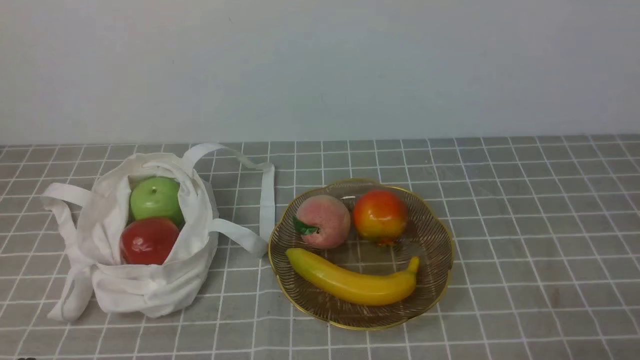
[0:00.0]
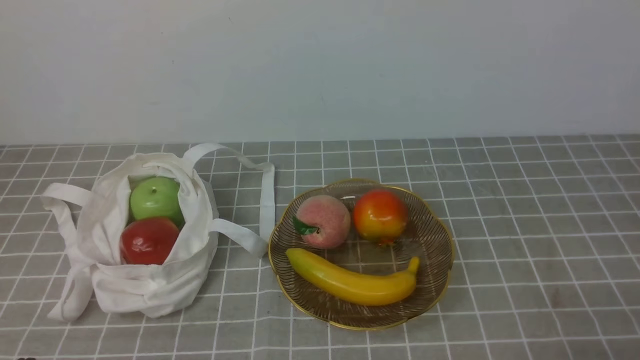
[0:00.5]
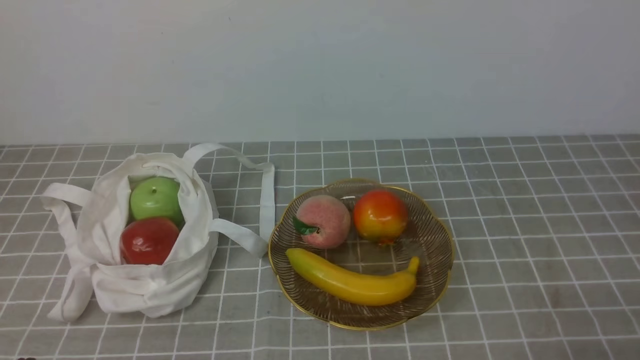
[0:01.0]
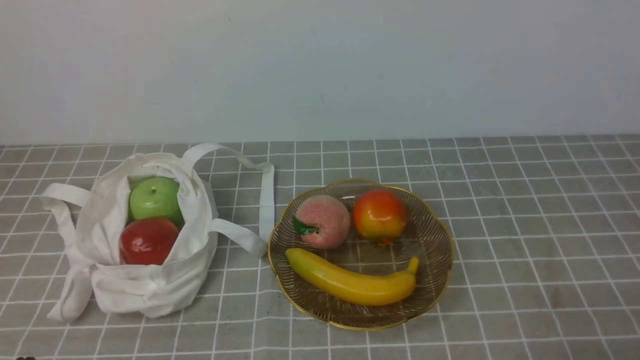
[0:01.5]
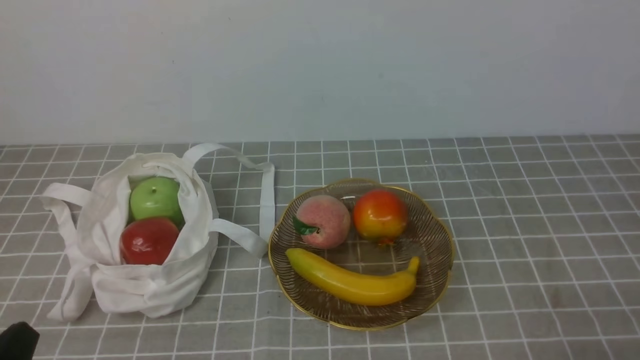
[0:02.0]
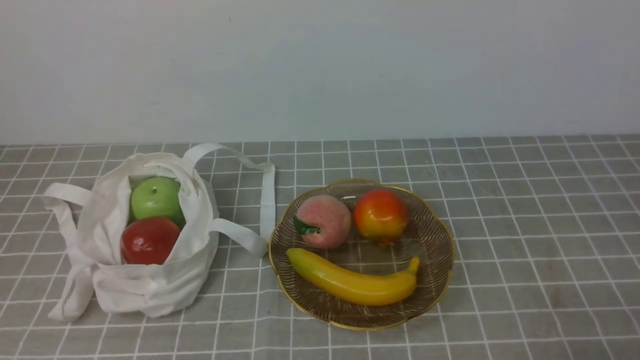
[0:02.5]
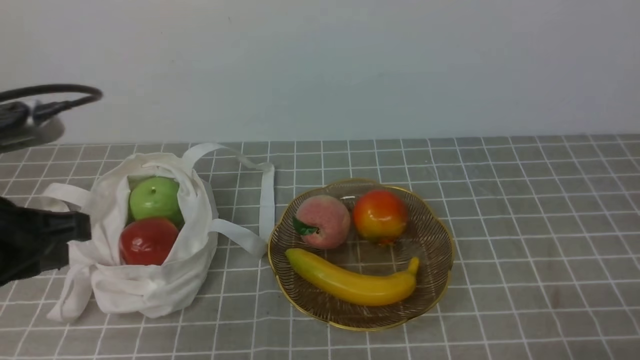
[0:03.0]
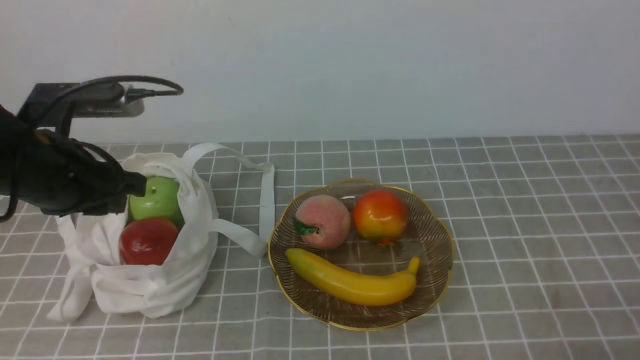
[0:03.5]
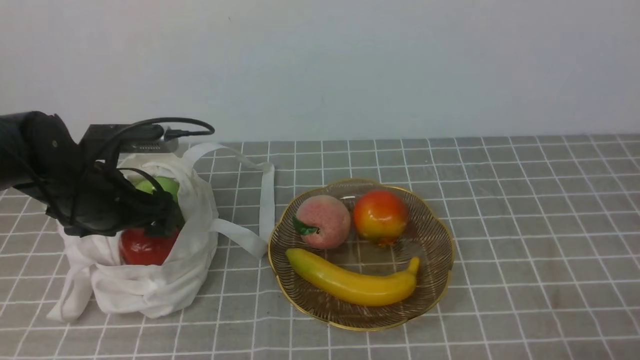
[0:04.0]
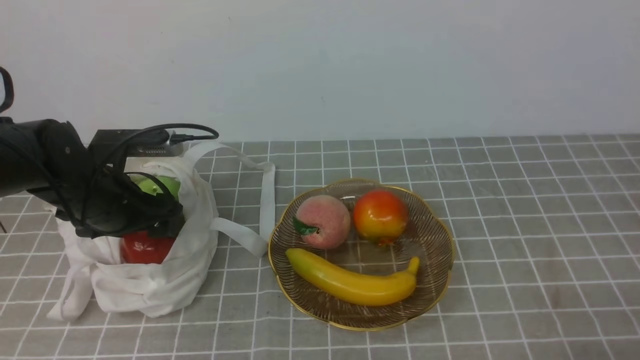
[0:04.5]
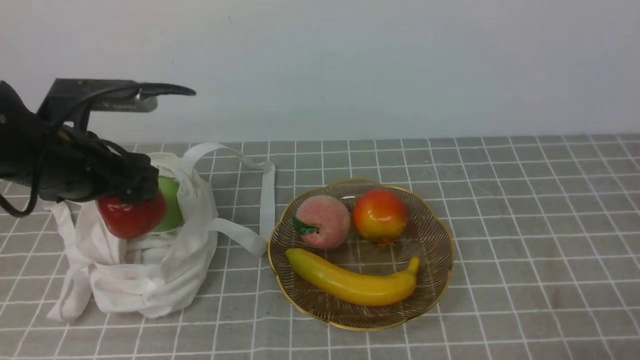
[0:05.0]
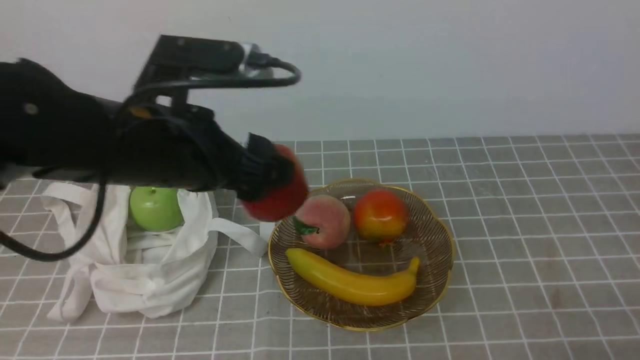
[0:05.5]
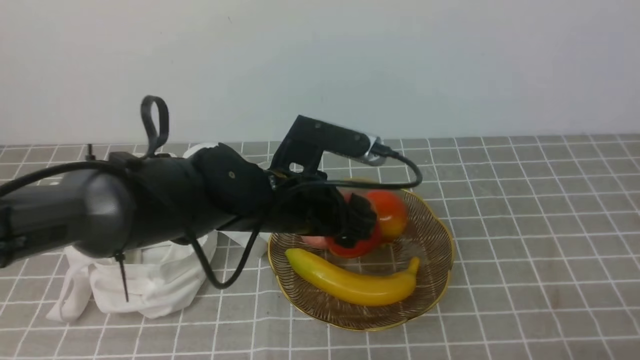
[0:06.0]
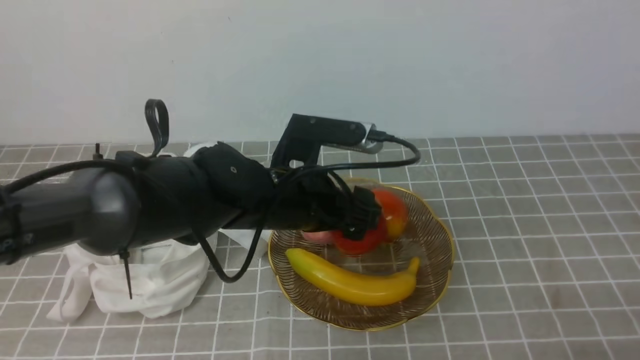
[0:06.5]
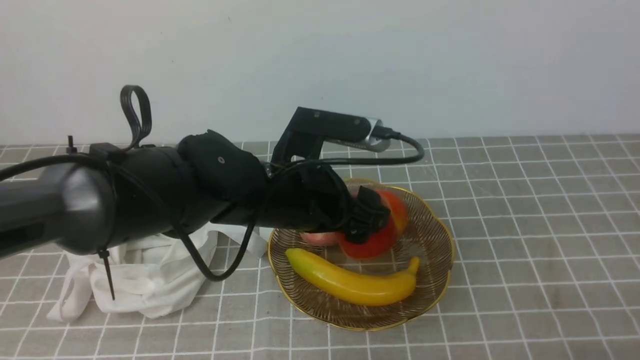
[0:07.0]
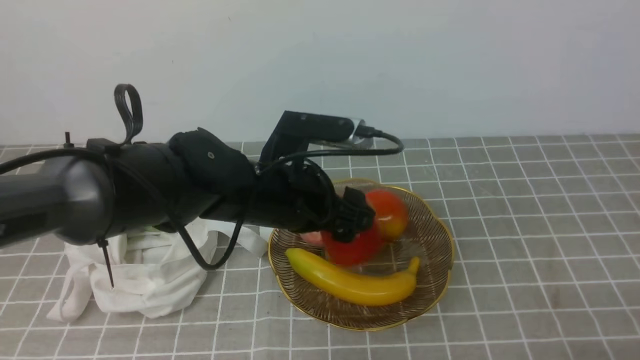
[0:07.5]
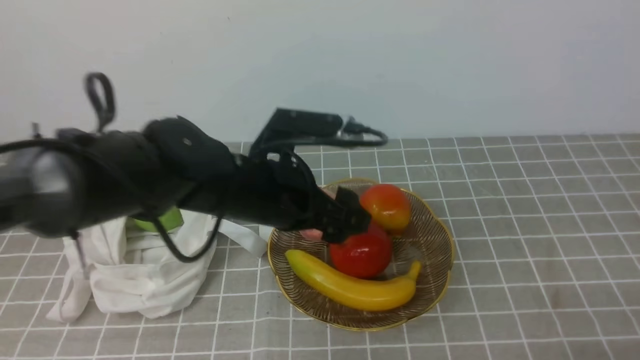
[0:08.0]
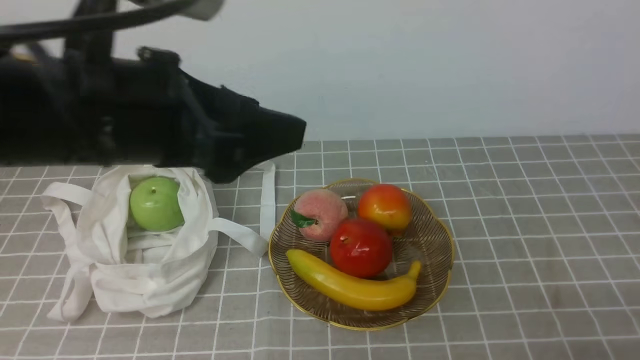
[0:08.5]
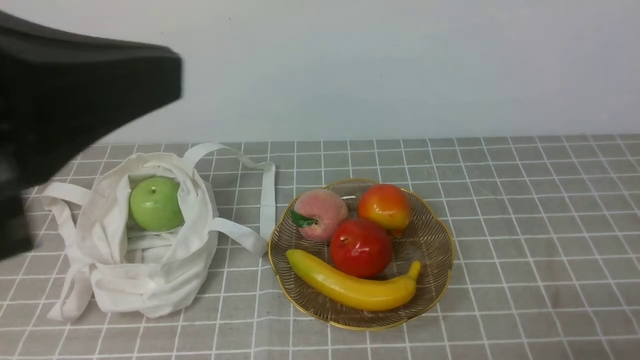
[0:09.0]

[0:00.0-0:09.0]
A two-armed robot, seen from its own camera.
Step, 0:00.0 to 0:04.5: use the left arm to grab an apple from the bag.
Step, 0:05.0 to 0:07.5: use the left arm to put the apple into the empty plate on the right.
0:02.0 to 0:04.5: The left gripper is displaced forward by about 30 cm, and opens its fingers.
0:04.5 to 0:07.0: The left gripper travels to the right by roughly 20 cm.
0:07.0 to 0:09.0: The left gripper travels upward, backward and to the left by some 30 cm, and closes its fingers.

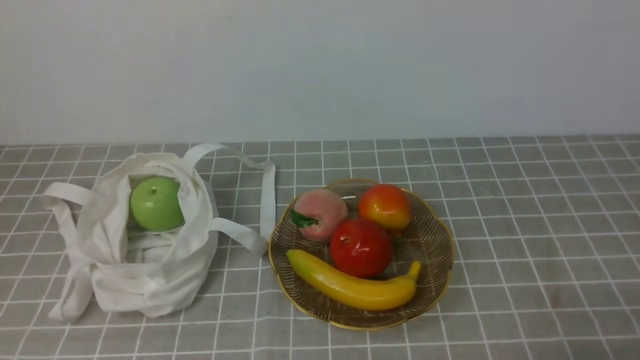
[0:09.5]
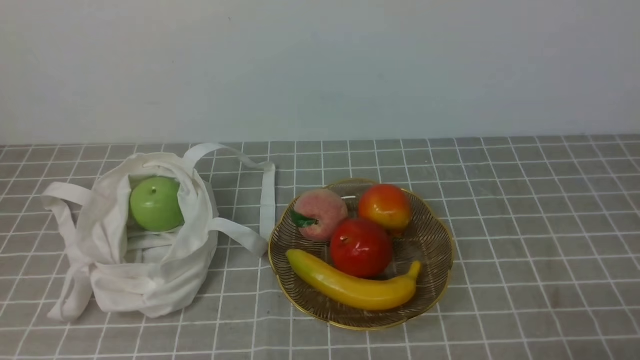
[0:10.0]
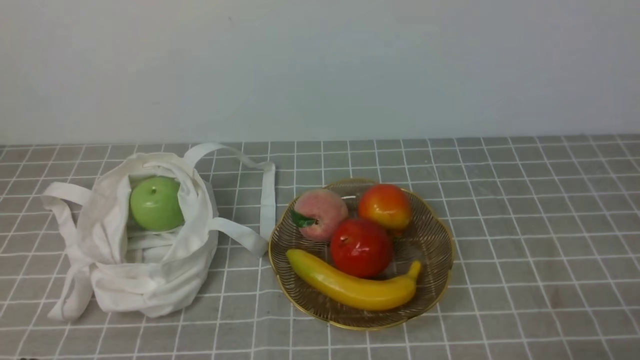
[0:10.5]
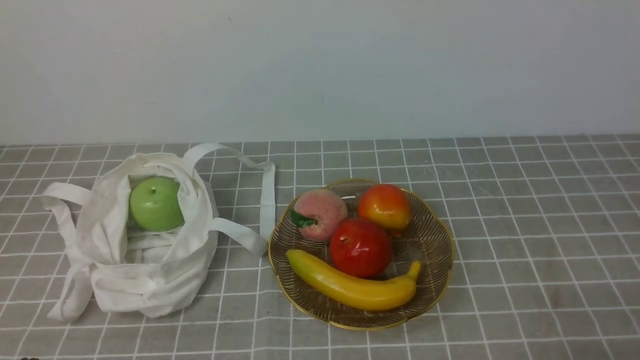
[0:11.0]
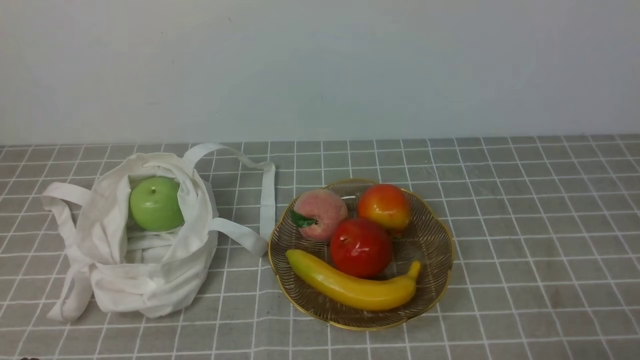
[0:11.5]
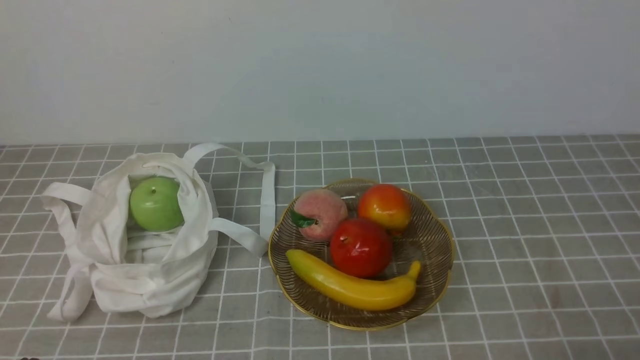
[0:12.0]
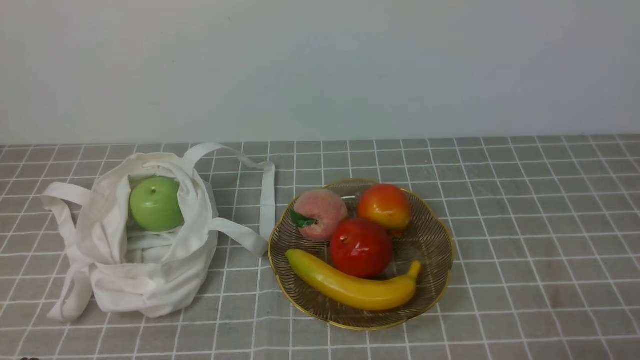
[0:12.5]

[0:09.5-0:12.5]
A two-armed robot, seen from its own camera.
0:11.0 to 0:12.5: The two grippers keep their place.
